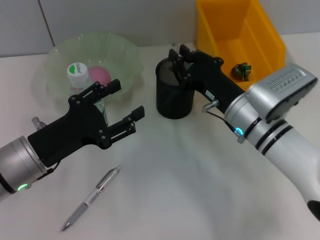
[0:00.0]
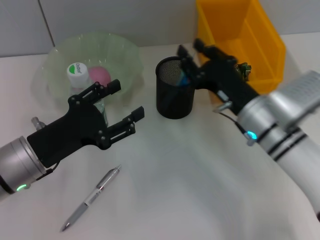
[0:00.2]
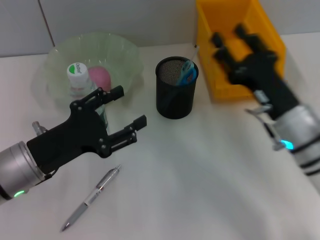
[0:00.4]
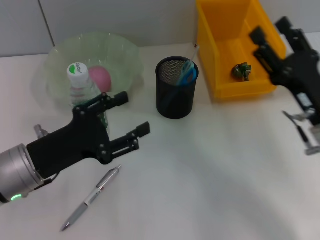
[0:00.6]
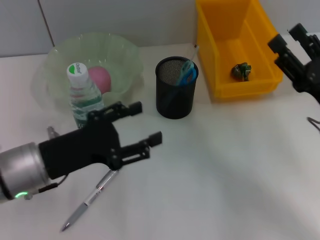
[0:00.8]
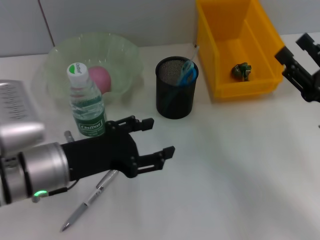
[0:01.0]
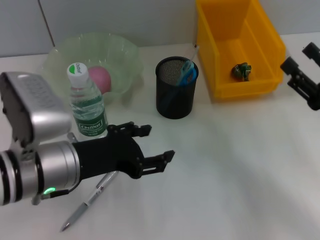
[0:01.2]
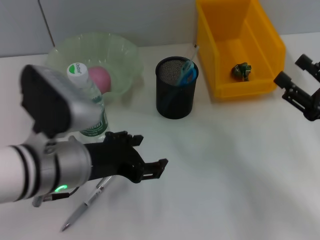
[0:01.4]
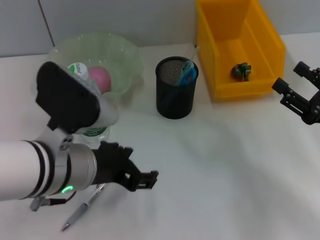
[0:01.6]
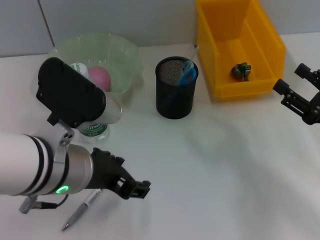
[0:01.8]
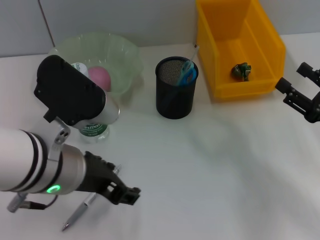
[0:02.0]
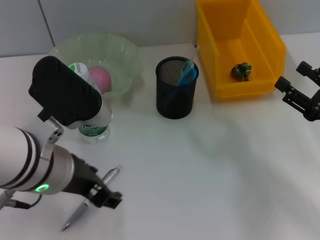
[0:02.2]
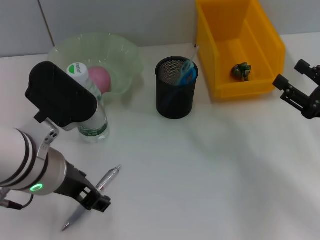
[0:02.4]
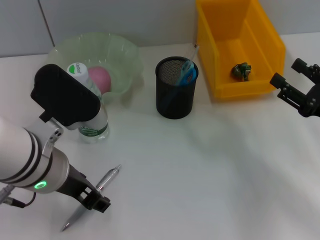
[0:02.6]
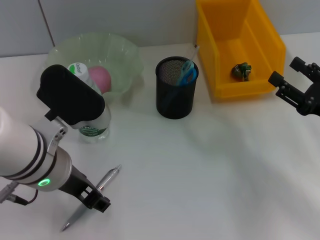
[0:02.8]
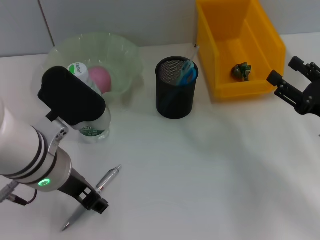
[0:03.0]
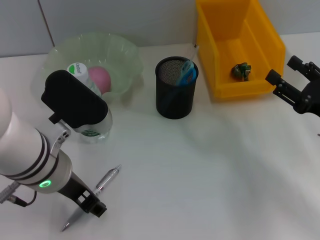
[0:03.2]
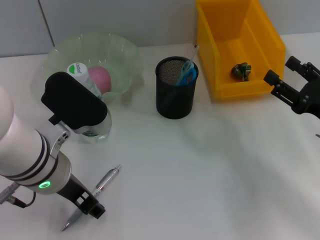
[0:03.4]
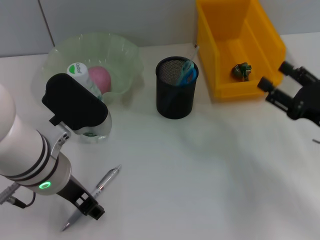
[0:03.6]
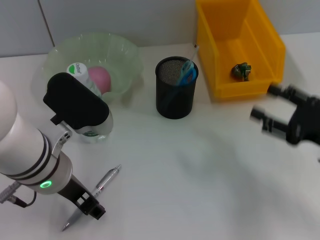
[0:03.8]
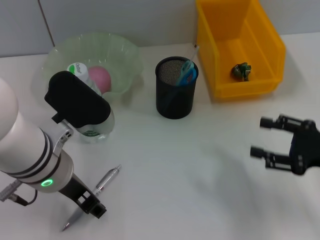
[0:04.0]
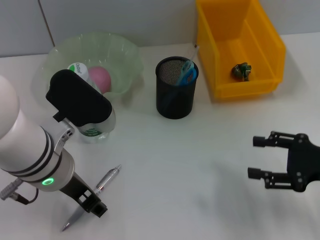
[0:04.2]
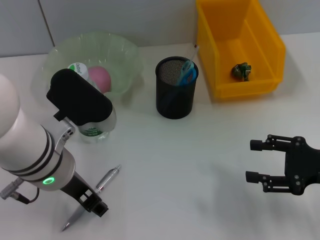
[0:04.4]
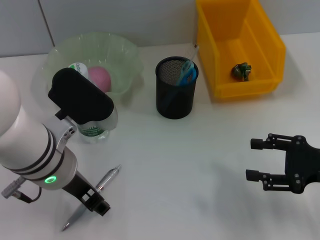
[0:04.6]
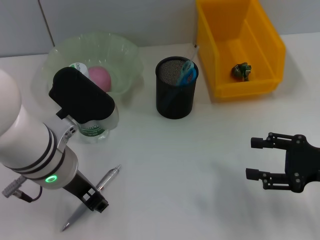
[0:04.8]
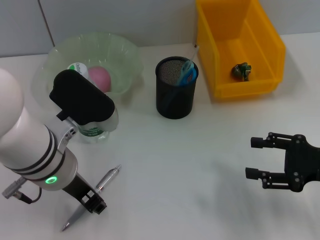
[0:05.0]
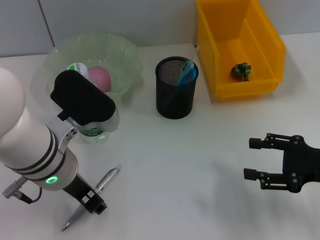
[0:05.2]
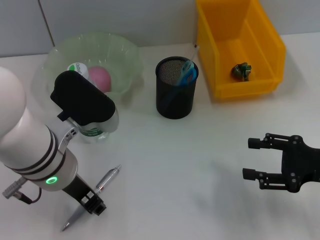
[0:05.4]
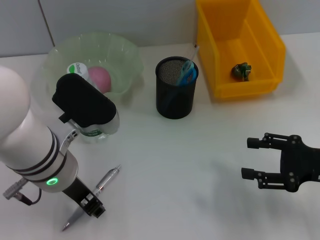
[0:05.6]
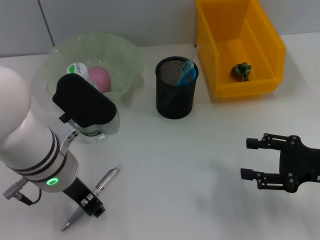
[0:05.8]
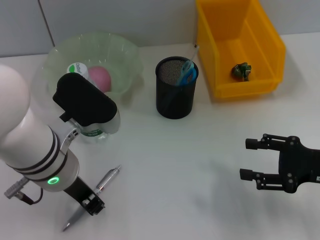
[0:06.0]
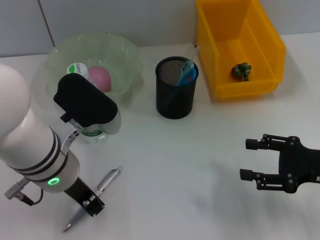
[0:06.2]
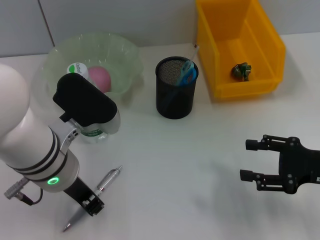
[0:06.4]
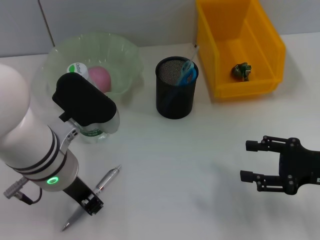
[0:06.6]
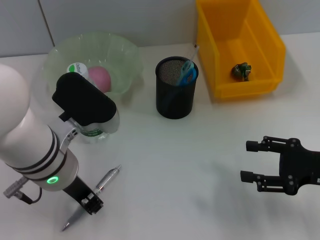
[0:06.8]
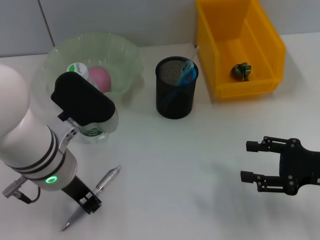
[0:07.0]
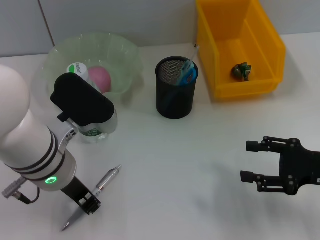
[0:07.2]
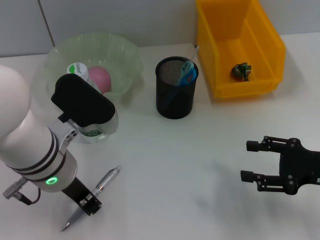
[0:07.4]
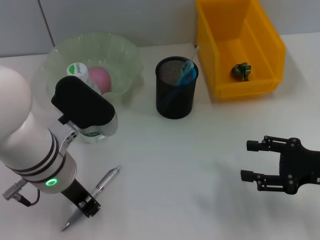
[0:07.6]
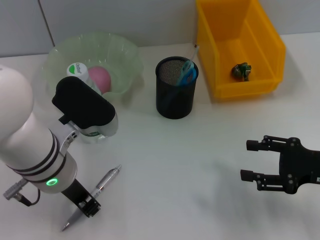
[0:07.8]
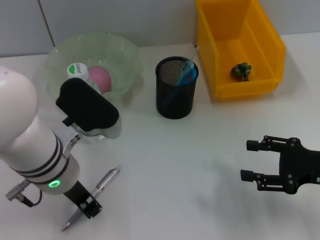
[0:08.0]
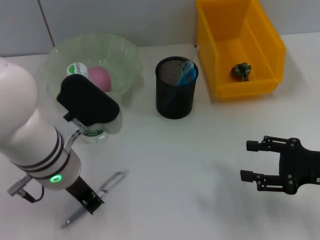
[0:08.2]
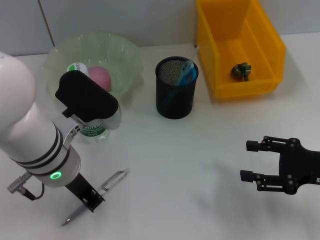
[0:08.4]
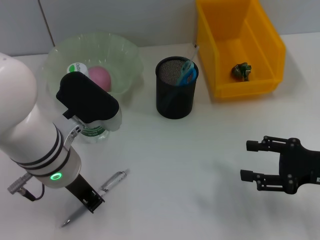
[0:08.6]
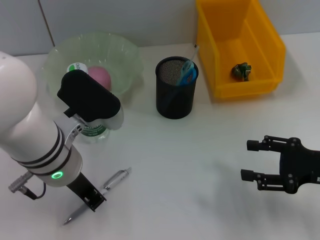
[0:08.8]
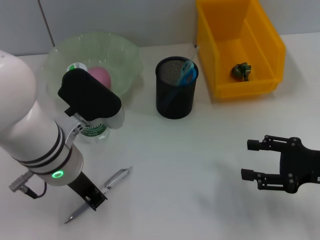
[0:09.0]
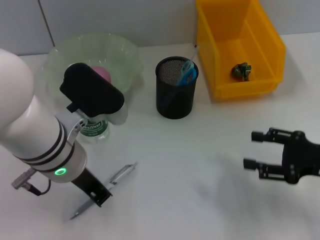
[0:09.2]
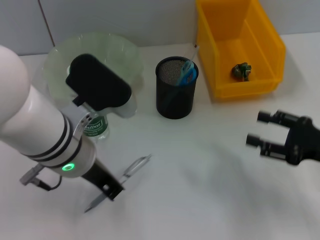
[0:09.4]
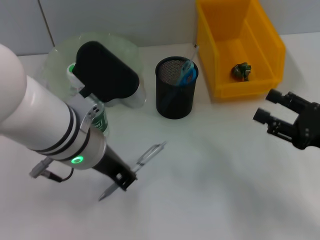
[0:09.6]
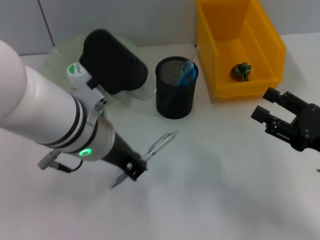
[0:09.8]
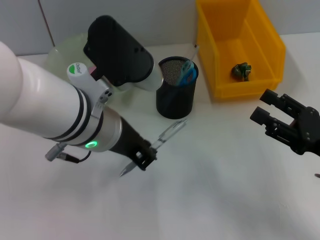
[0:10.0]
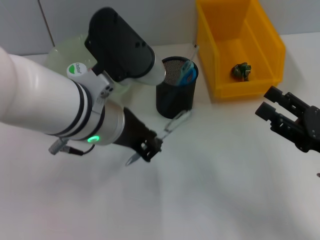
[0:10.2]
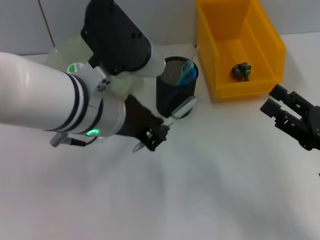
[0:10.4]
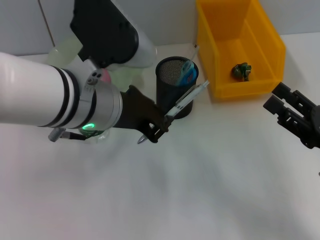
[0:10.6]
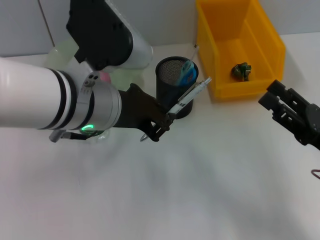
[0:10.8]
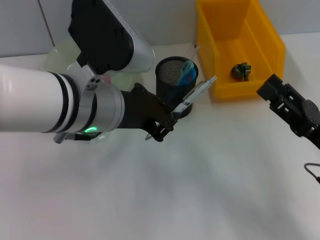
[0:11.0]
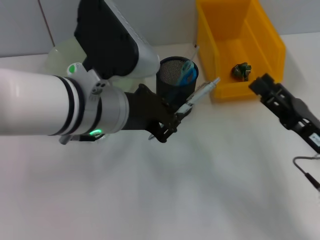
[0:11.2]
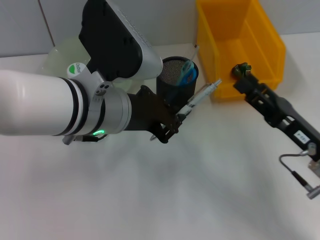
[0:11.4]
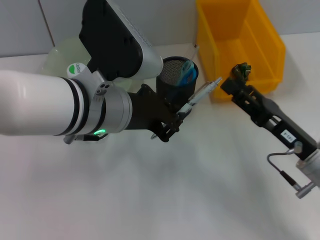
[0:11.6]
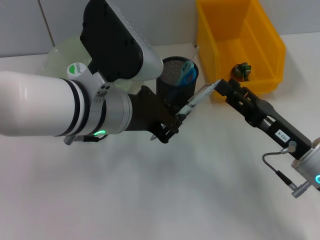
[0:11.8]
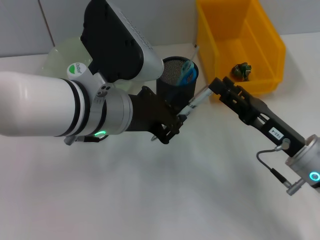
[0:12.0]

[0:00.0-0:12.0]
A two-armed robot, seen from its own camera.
Step, 0:00.4 to 0:08.4: Grab the gray spring-action pen with the left hand.
0:00.0 to 0:01.6: The right gripper is displaced to the right and backward by about 20 cm, and opens. Meanwhile the left gripper is displaced to the right and upward by about 10 cm.
0:04.4 to 0:07.6: The two grippers keep their place.
0:07.6 to 0:09.0: Neither gripper changes place.
0:09.0 to 0:10.4: The left gripper shifts roughly 5 cm upward.
0:10.4 to 0:12.0: The right gripper goes about 5 cm to the left.

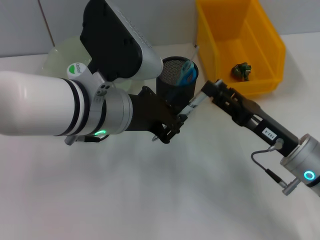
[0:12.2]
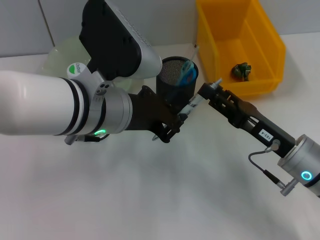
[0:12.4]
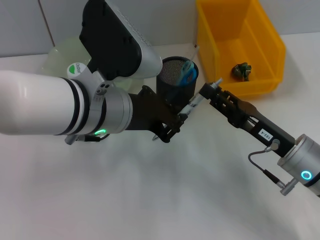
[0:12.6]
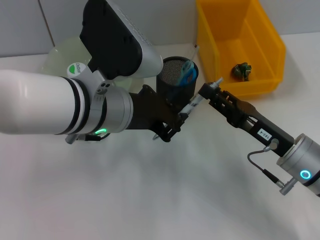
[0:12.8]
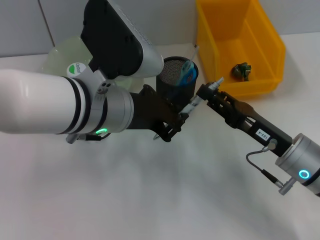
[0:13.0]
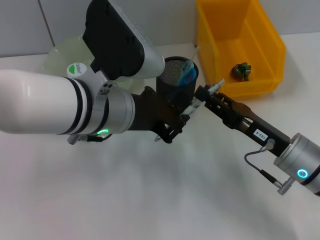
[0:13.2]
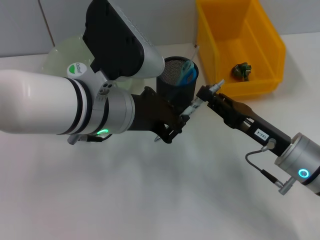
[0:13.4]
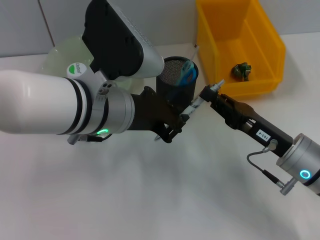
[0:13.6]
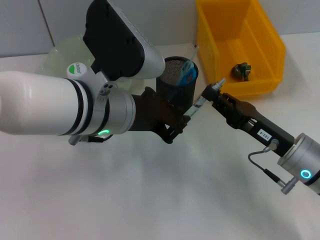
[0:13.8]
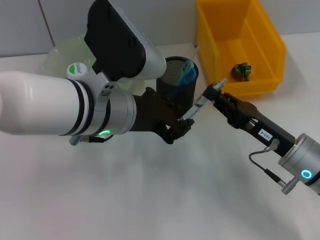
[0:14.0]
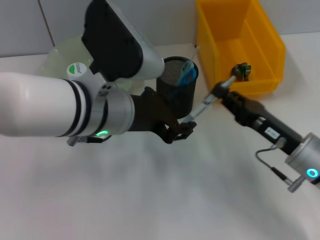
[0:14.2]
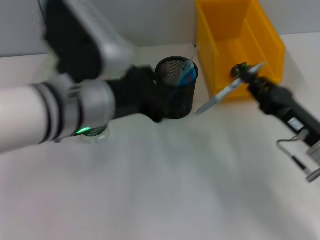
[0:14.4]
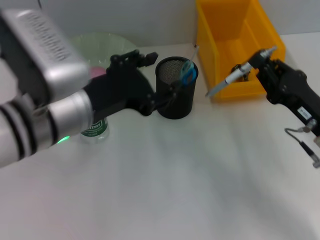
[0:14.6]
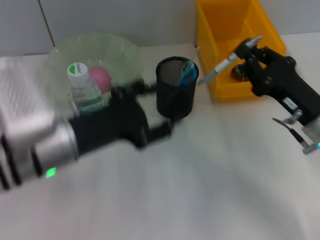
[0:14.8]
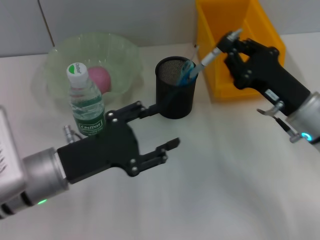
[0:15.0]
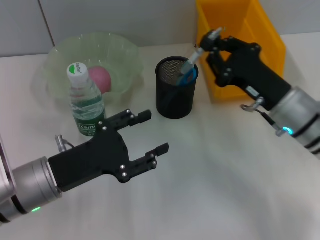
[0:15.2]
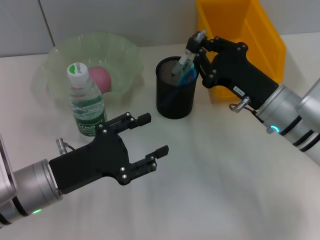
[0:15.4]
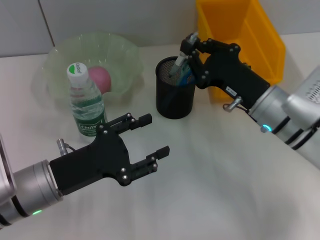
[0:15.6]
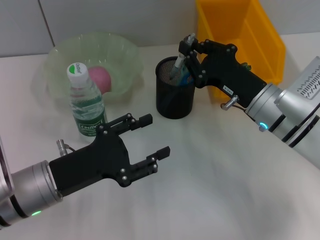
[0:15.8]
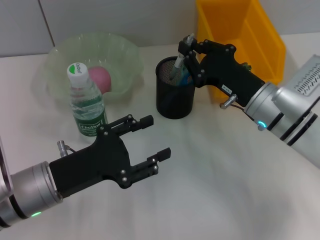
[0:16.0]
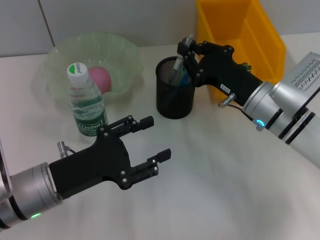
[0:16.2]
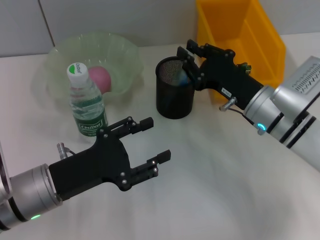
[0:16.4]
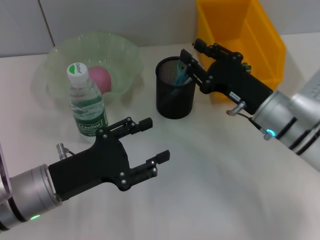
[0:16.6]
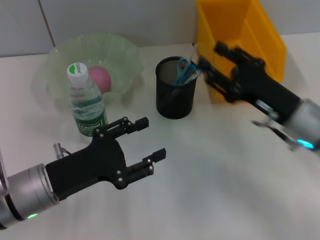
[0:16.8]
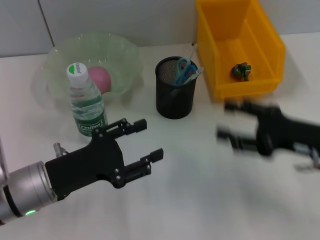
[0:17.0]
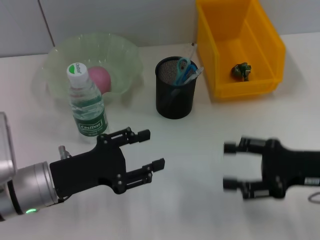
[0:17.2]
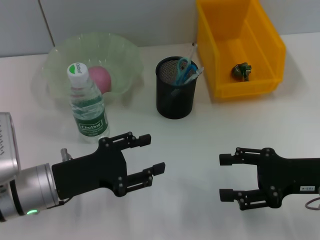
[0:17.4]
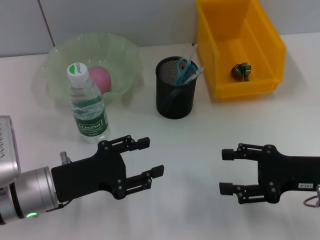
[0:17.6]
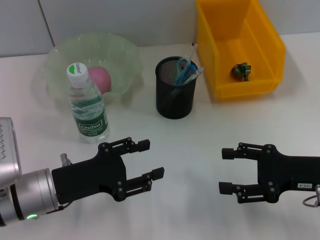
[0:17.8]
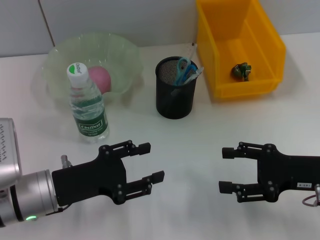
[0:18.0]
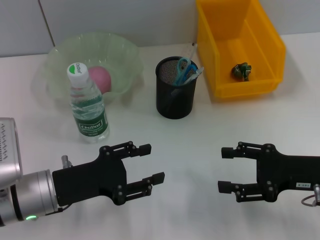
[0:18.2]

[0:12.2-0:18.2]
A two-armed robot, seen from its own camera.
Step, 0:12.2 to 0:14.2: Pass the gray spring-action pen from the left hand to the right hand.
Step, 0:14.4 to 0:16.6: Place the gray spring-action pen into the pen holder with the right hand.
0:12.2 to 0:13.8: The right gripper closes.
0:13.8 to 0:15.2: The right gripper heads forward, covering about 5 cm, while the left gripper moves downward and to the left, about 15 cm, and opens its fingers.
0:15.2 to 0:16.6: The grippers make only small movements.
0:16.6 to 0:18.2: The right gripper heads to the right and backward, covering some 10 cm, and opens its fingers.
